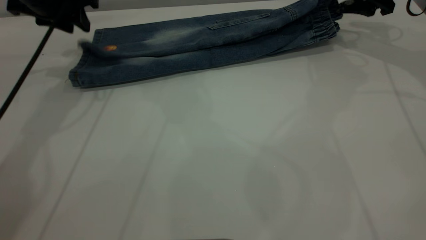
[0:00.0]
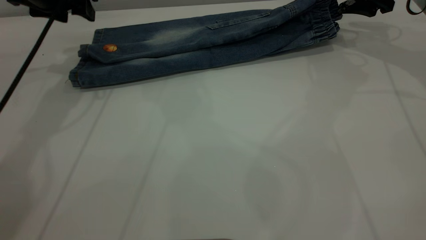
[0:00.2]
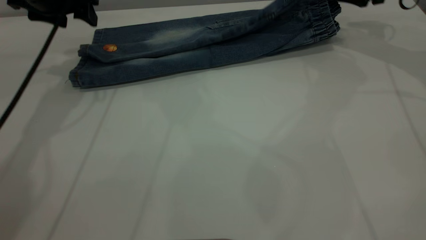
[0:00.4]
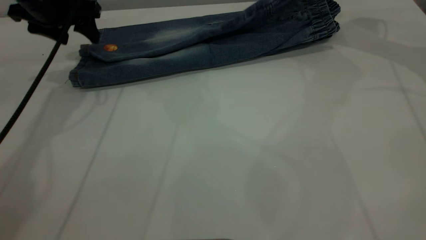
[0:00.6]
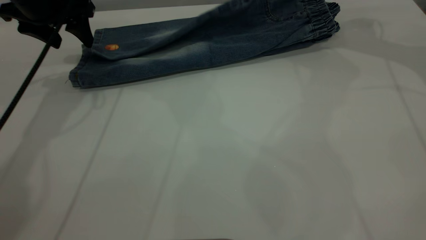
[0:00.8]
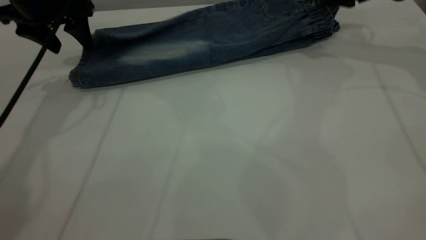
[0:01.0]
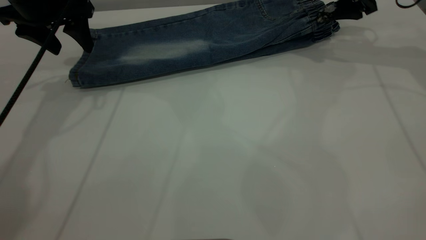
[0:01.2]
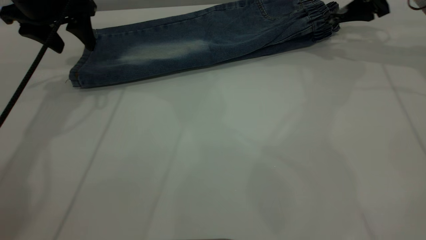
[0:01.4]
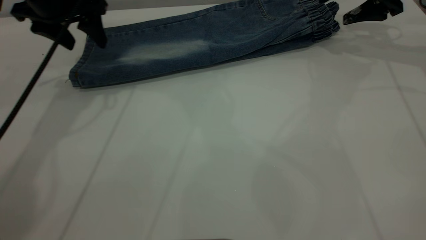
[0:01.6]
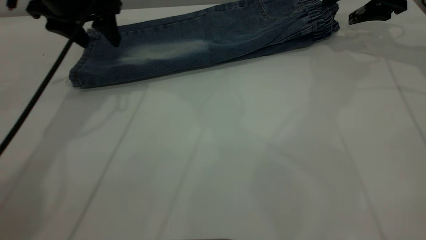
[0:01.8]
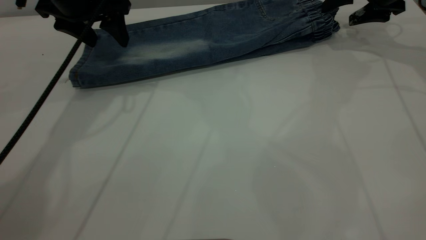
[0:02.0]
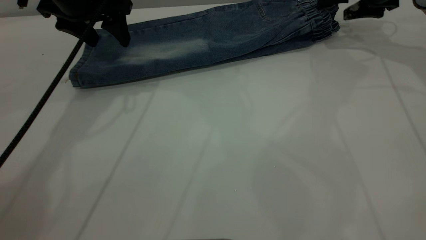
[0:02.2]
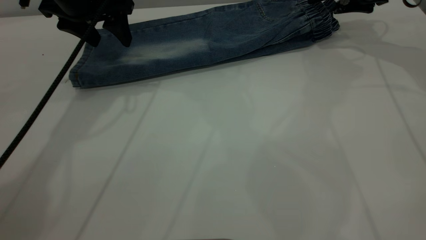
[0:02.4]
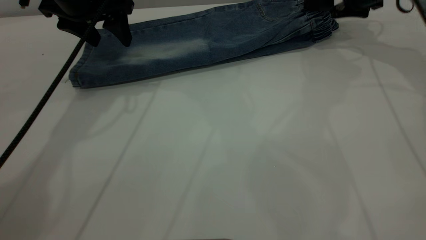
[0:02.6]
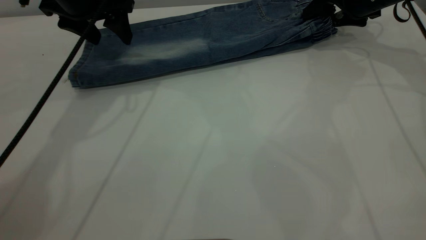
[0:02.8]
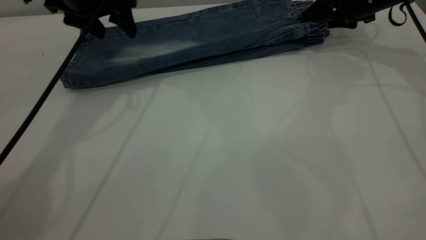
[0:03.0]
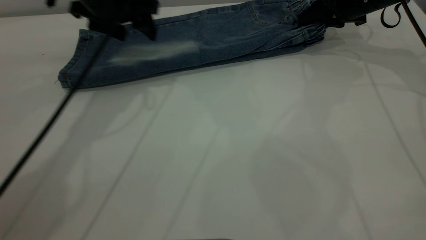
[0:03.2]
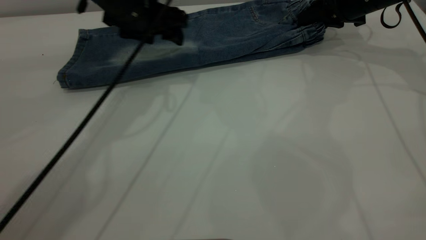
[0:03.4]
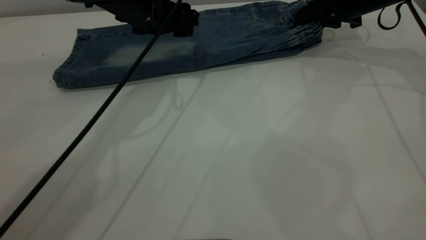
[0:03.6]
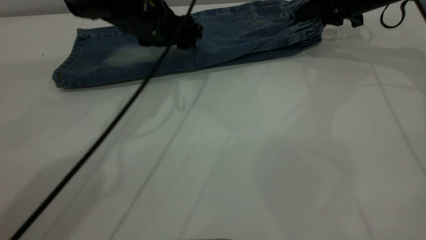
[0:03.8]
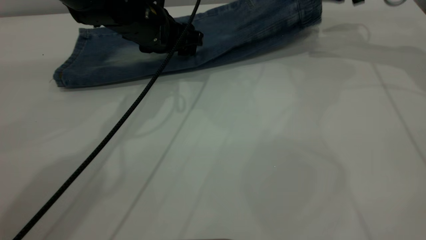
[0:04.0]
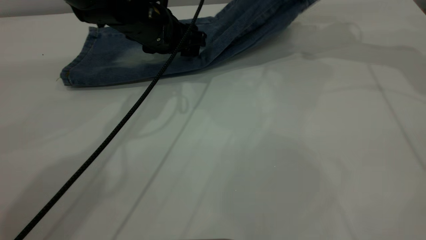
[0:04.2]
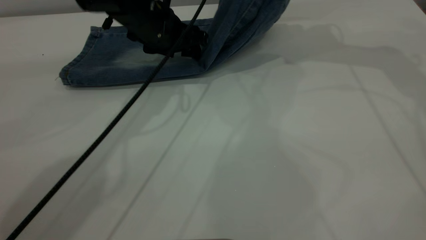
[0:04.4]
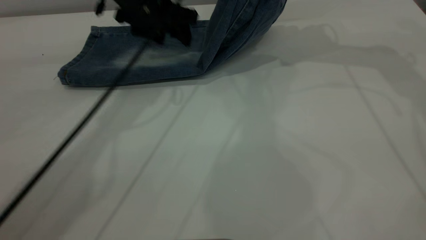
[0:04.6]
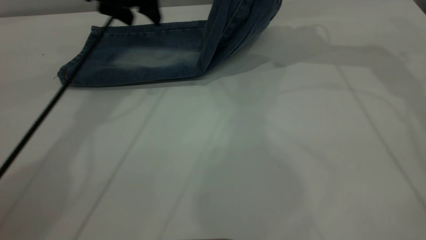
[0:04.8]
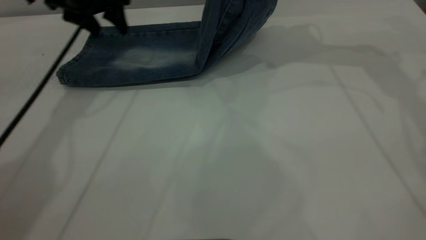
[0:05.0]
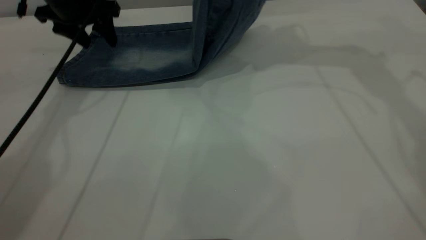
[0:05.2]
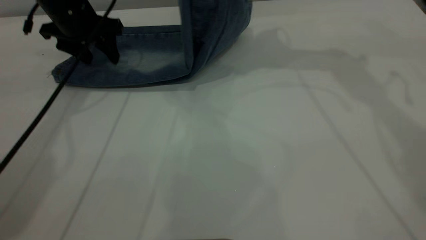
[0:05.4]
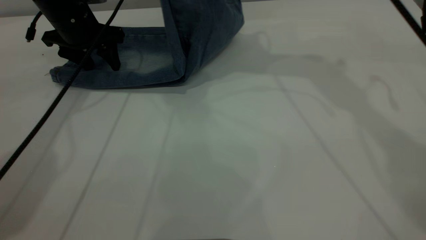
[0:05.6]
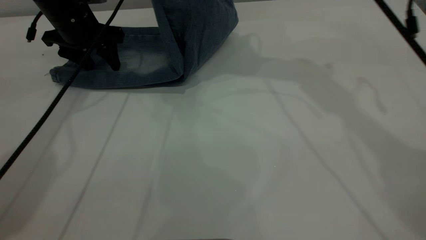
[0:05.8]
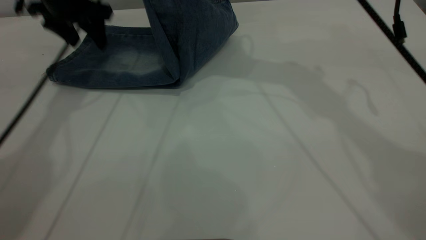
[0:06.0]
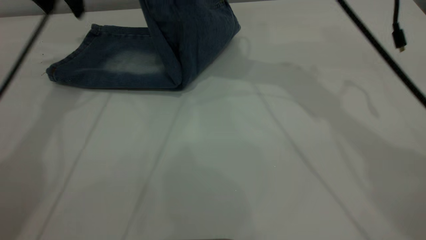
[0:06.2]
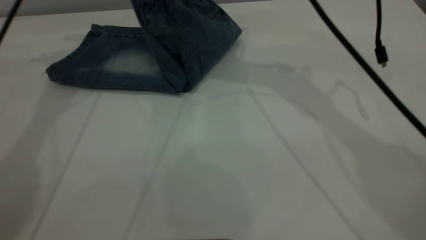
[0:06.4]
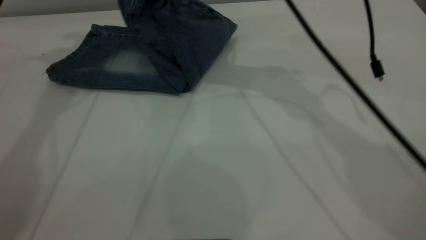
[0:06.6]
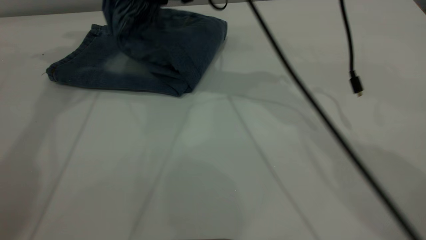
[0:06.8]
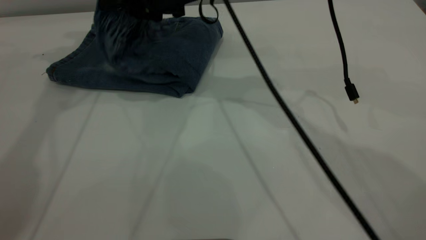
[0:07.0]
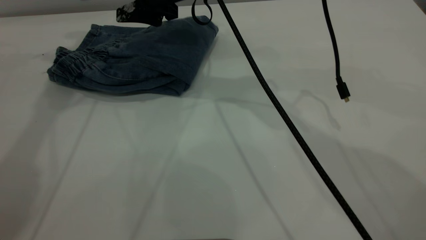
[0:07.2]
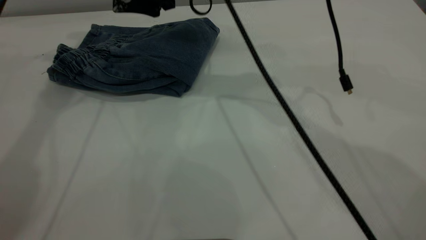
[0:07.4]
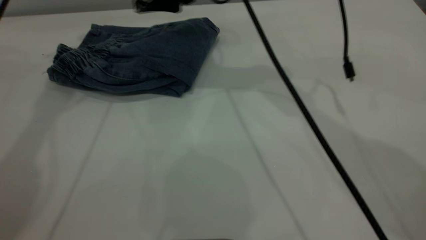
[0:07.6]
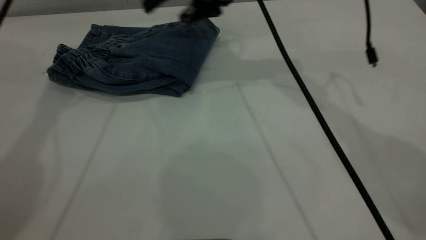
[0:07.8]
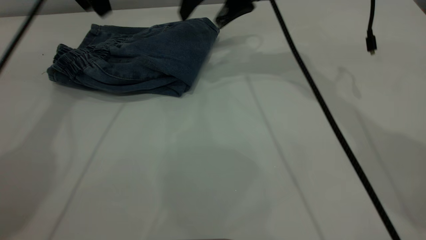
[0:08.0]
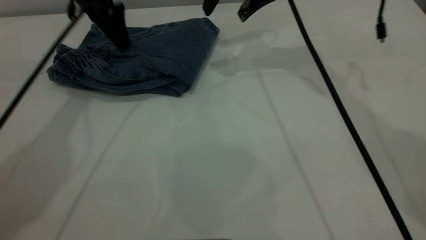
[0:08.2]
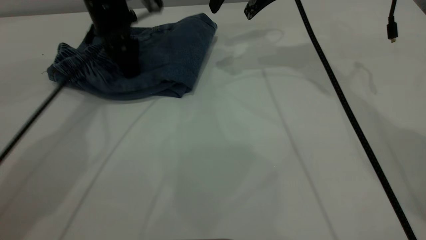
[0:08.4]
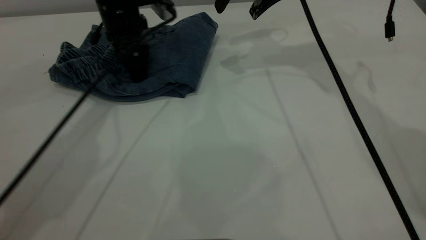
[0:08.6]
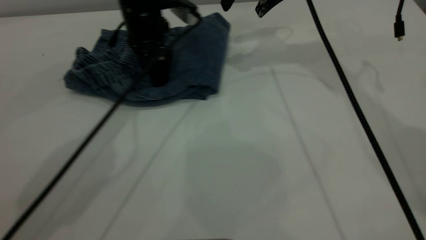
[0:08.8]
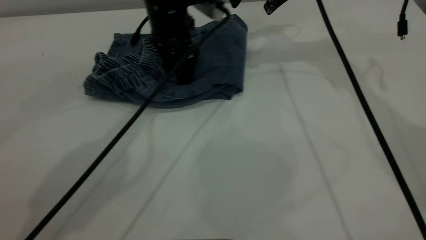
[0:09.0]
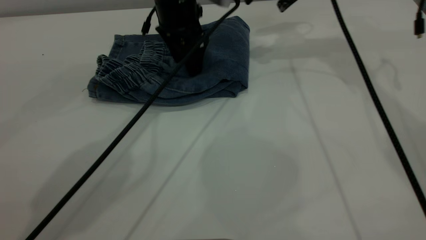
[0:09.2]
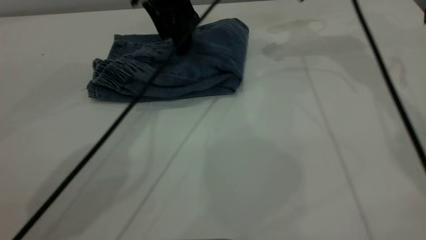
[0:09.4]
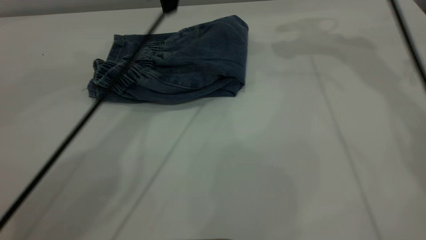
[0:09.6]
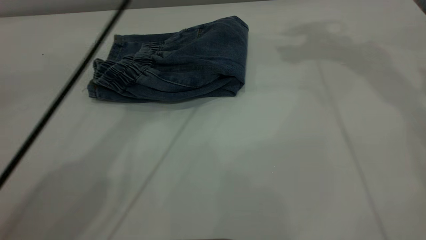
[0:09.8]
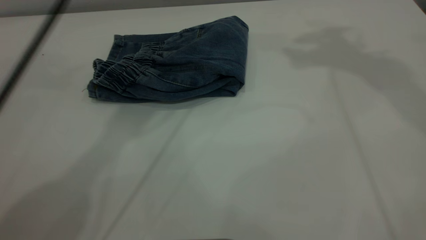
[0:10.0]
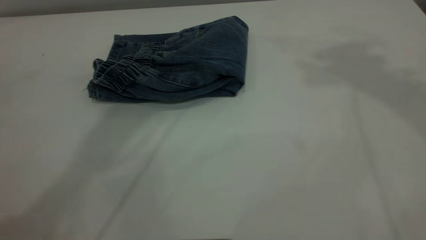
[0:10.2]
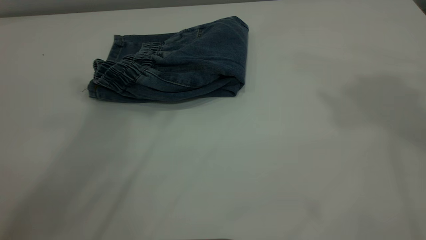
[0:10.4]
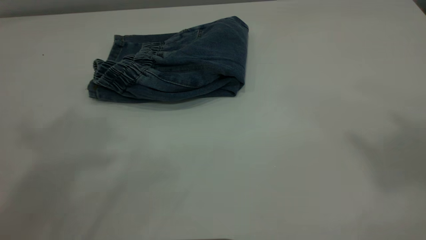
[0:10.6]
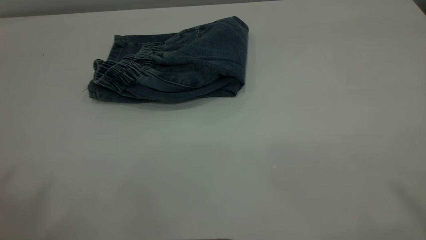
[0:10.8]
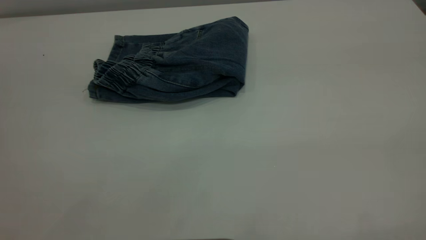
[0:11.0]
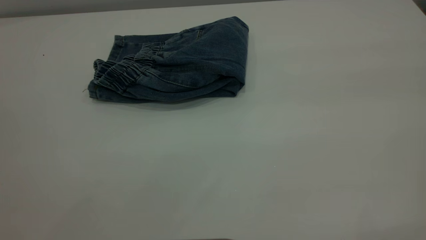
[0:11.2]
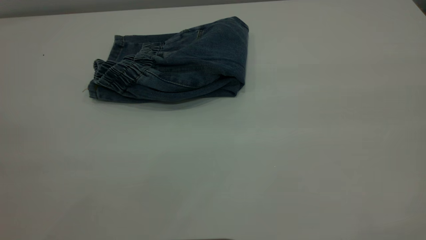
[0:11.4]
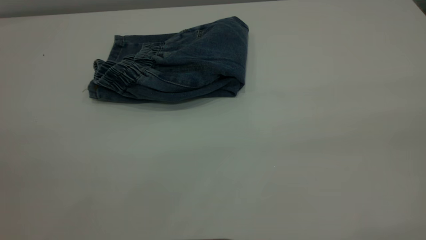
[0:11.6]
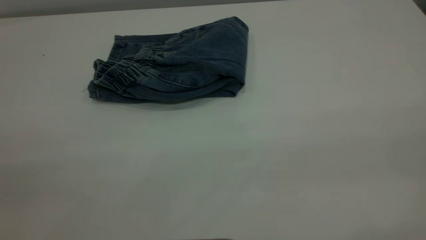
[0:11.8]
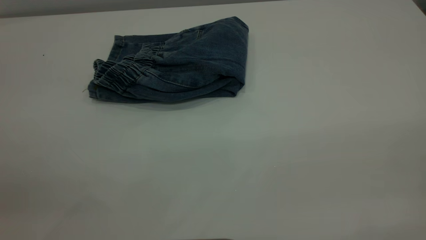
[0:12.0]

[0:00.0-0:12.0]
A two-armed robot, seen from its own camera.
Step, 0:01.4 to 0:07.4: Fold your pants from right to left.
0:00.0 to 0:01.6: The left gripper opens up.
0:01.6 to 0:03.0: The right gripper moves about 5 cm, and closes its fingers.
0:03.0 to 0:04.4: The right gripper travels upward and to the left by some 15 cm, while the left gripper moves to the right and downward, roughly 10 cm.
0:04.4 to 0:06.0: The right gripper heads to the left, covering about 15 cm; the left gripper travels to the left and upward by approximately 15 cm.
0:06.0 to 0:07.6: The right gripper goes roughly 5 cm downward, and opens. Meanwhile the left gripper goes some 15 cm upward.
0:07.6 to 0:09.0: The right gripper moves to the right, approximately 15 cm. Meanwhile the left gripper heads to the right and downward, covering approximately 25 cm.
0:09.0 to 0:10.4: The right gripper shifts about 40 cm upward and backward; the left gripper moves upward, some 40 cm.
